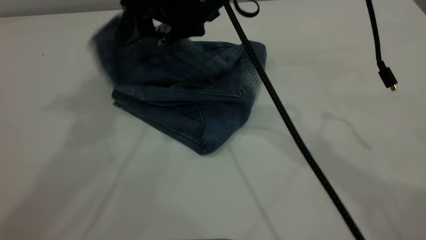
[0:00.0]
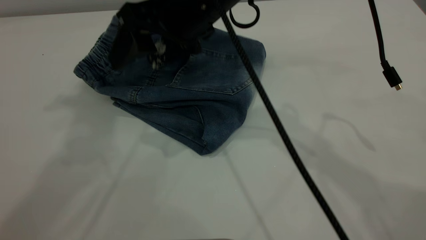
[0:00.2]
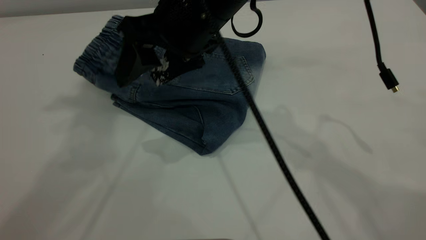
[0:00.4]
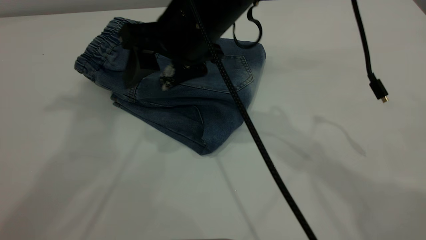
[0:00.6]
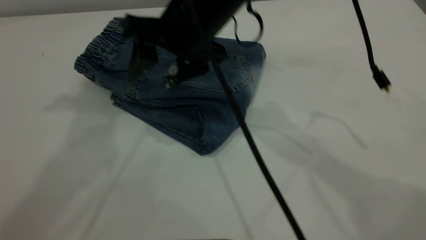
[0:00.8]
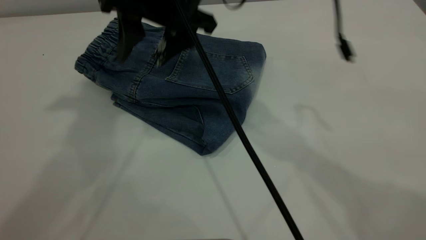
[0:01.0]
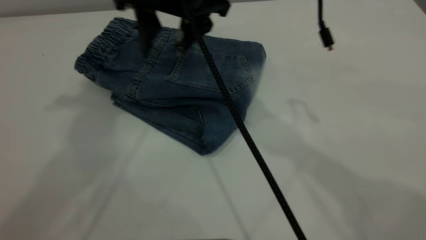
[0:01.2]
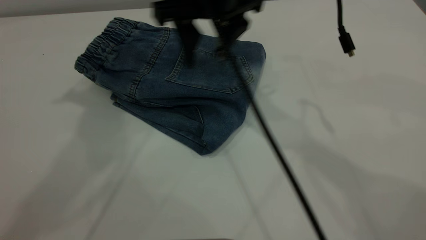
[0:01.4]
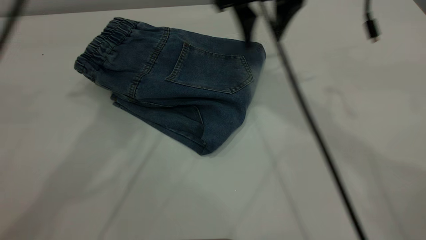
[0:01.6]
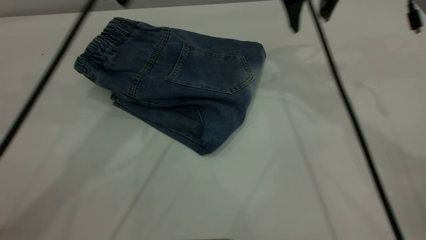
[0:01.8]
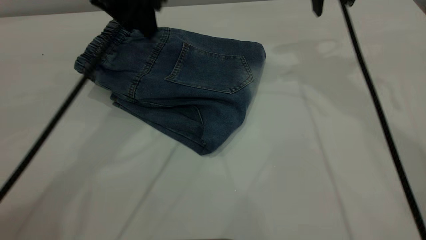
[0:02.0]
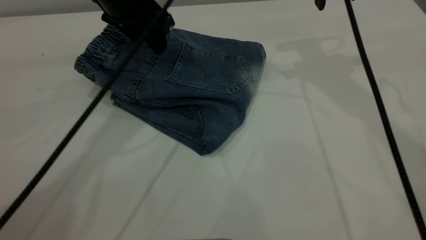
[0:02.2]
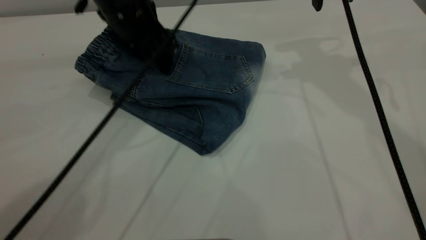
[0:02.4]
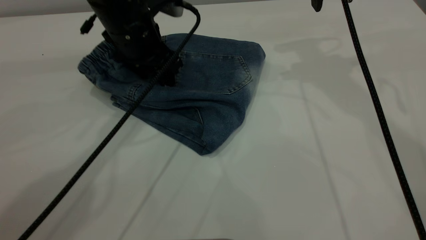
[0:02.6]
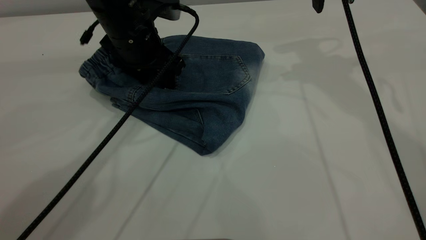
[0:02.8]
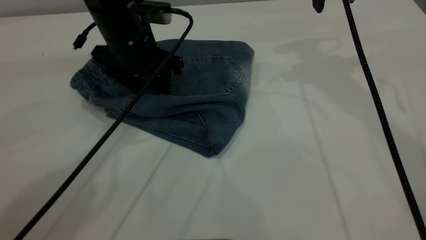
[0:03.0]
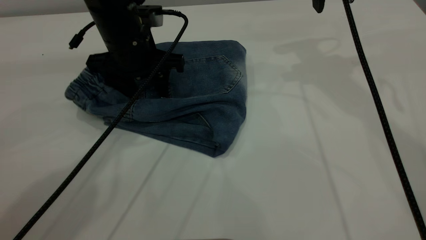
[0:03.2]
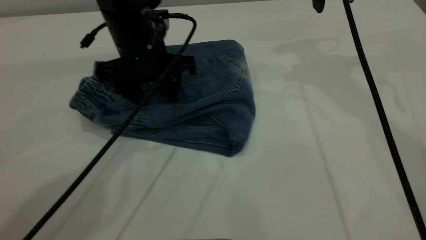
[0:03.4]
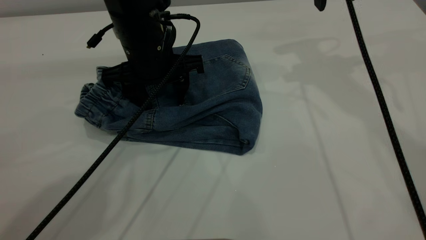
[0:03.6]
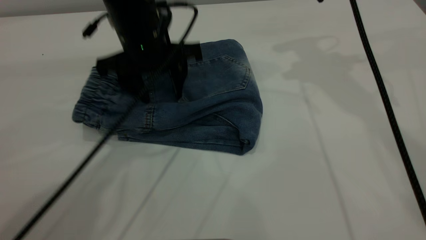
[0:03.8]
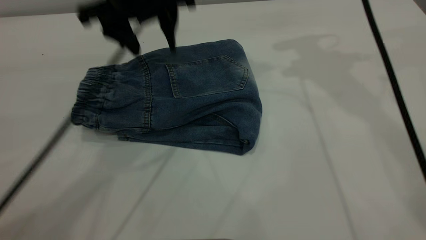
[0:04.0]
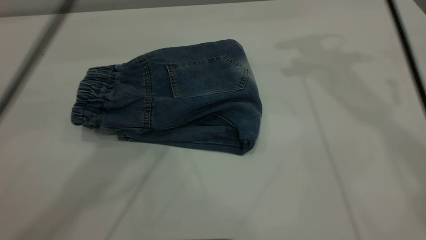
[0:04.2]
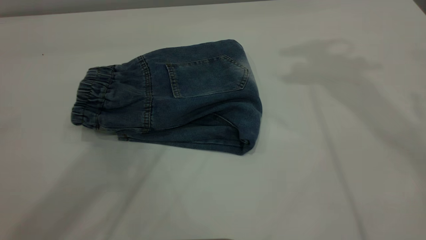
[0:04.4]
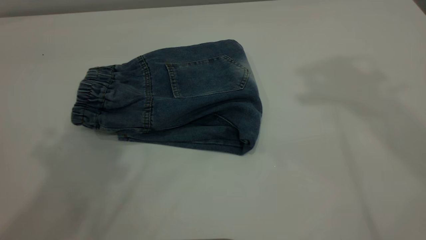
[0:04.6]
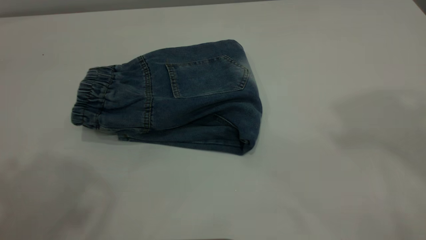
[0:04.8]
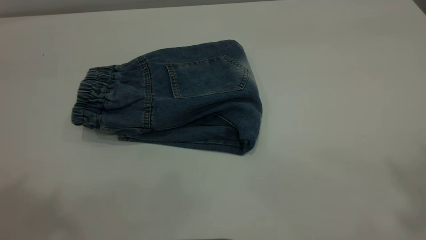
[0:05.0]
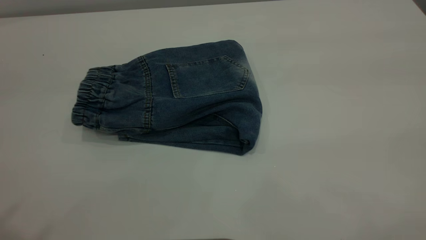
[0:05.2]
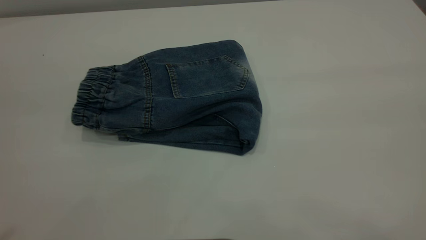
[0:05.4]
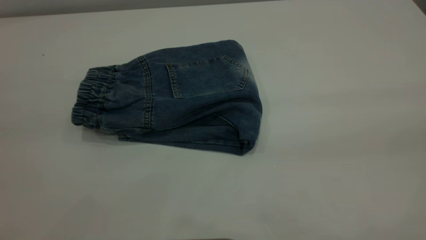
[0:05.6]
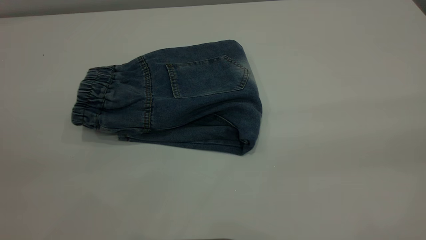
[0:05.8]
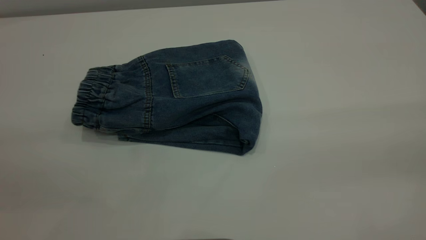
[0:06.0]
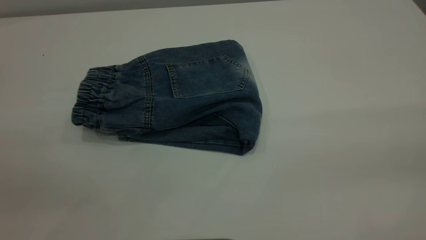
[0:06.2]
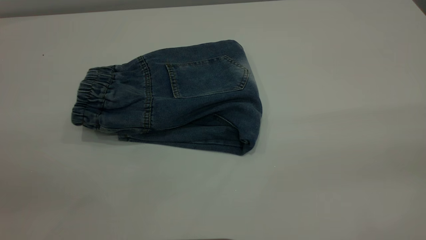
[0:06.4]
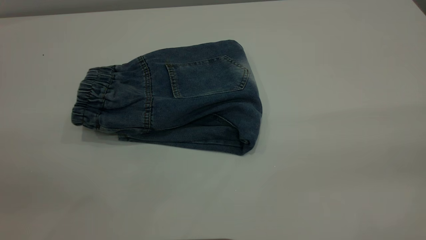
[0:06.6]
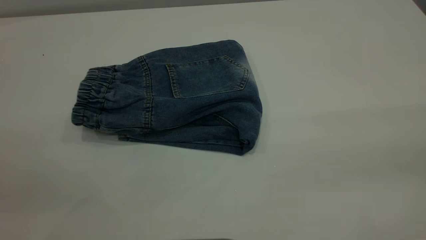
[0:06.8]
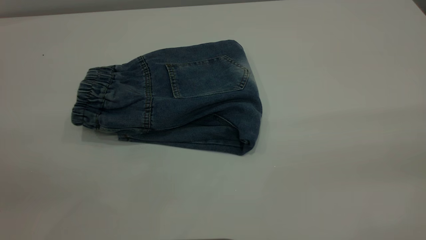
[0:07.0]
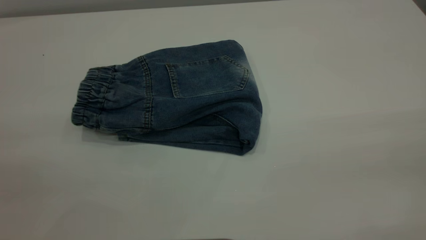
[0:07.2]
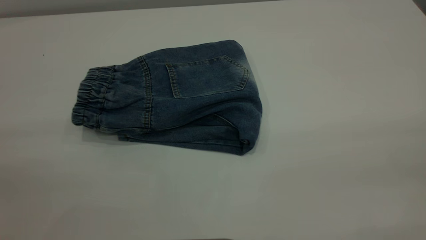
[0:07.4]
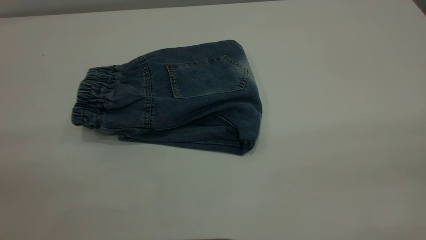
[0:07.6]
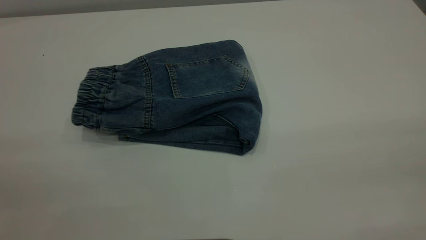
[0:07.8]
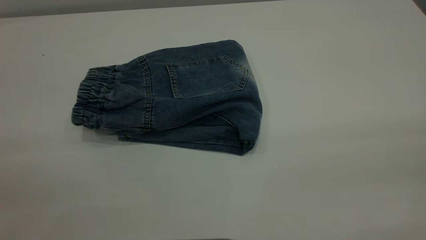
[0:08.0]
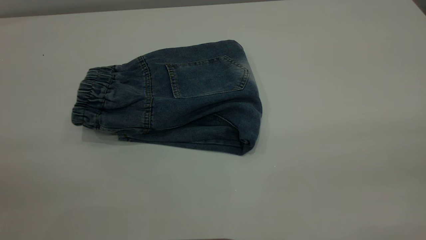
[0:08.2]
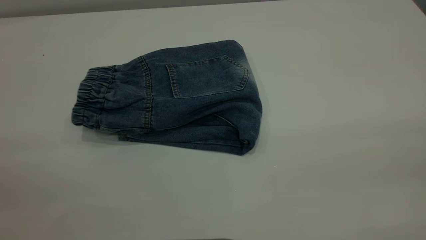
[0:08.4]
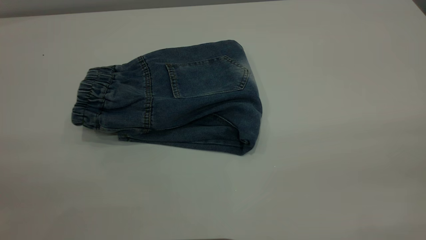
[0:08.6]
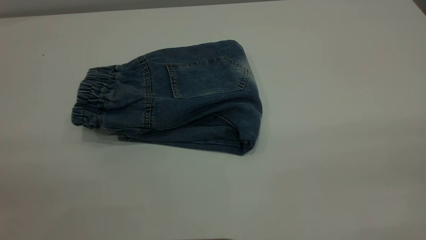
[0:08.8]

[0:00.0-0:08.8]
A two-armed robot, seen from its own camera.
0:00.0 to 0:01.4: The left gripper goes approximately 5 cm downward.
0:01.4 to 0:03.0: The left gripper heads downward, covering some 25 cm. The right gripper is displaced to the right and forward by about 15 cm.
0:03.0 to 0:04.4: The left gripper moves upward, roughly 30 cm, while the right gripper travels upward by approximately 20 cm.

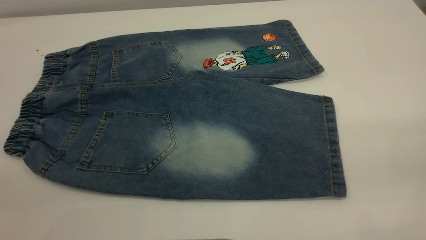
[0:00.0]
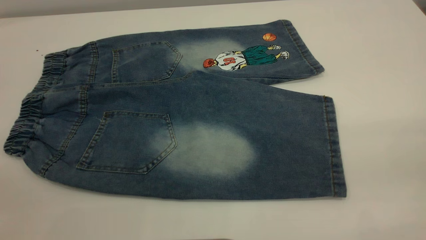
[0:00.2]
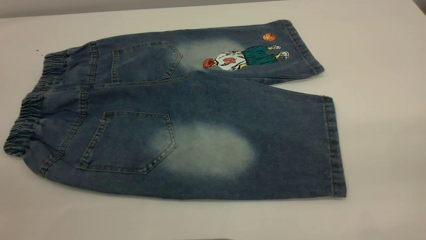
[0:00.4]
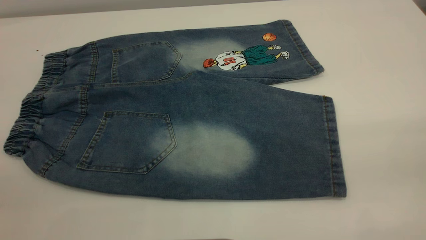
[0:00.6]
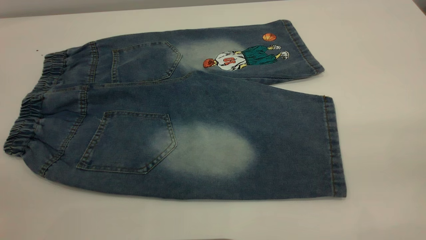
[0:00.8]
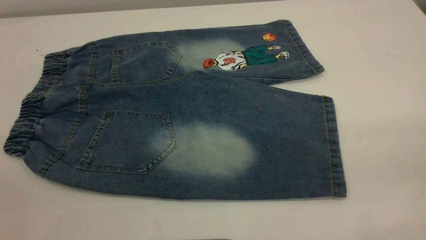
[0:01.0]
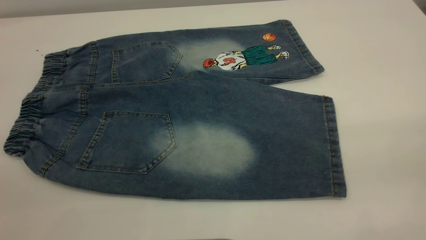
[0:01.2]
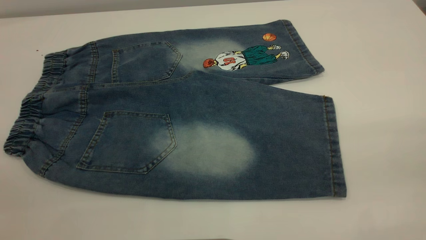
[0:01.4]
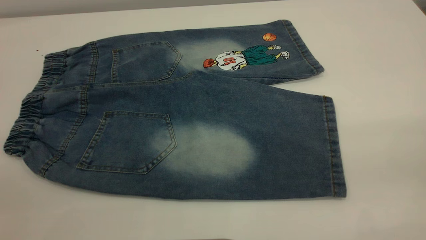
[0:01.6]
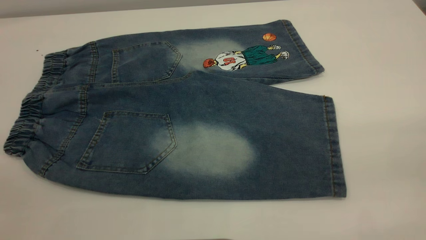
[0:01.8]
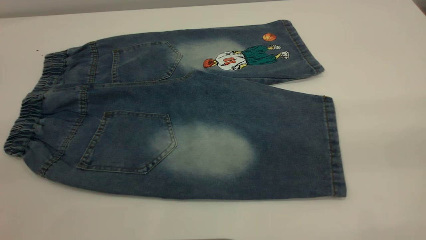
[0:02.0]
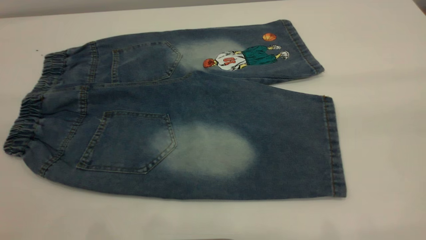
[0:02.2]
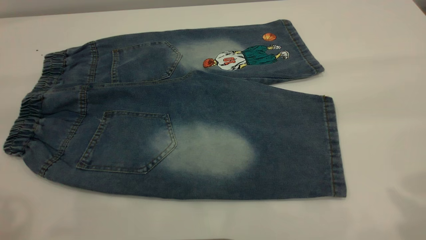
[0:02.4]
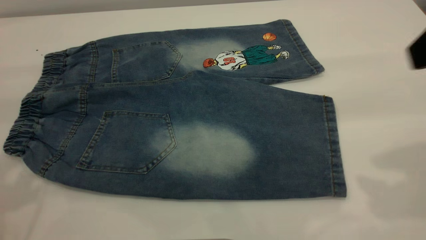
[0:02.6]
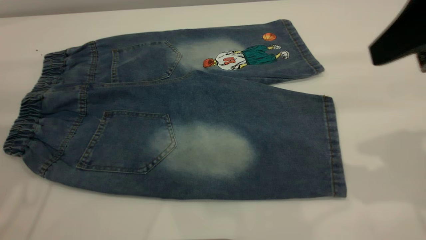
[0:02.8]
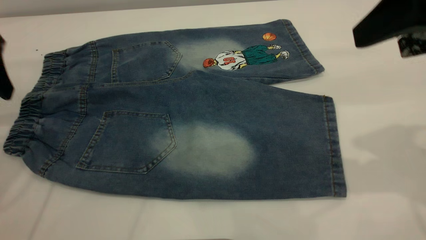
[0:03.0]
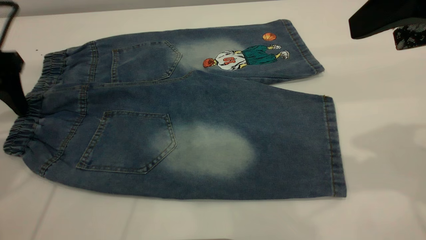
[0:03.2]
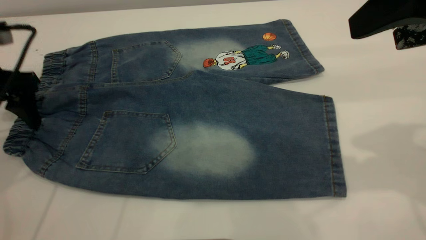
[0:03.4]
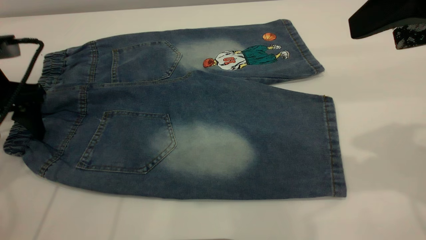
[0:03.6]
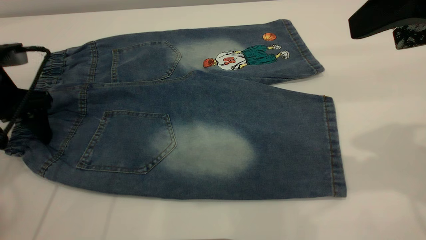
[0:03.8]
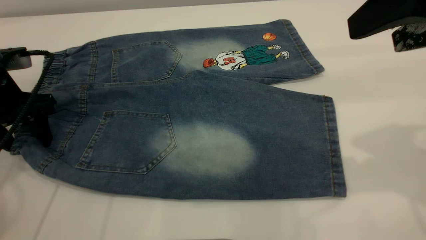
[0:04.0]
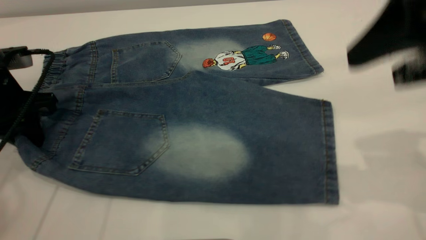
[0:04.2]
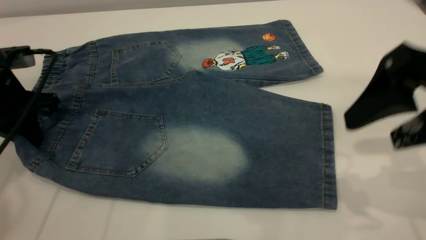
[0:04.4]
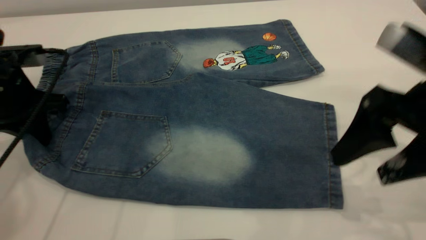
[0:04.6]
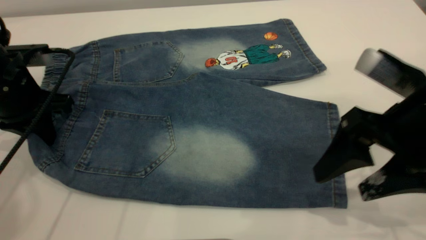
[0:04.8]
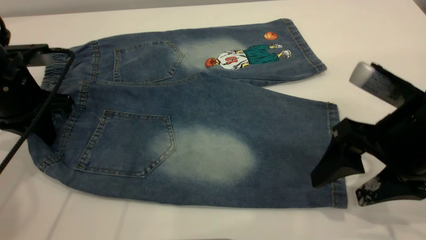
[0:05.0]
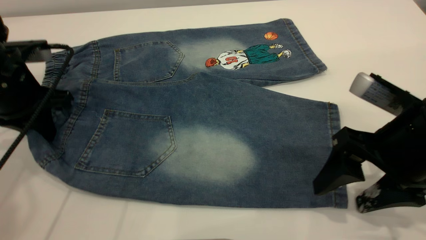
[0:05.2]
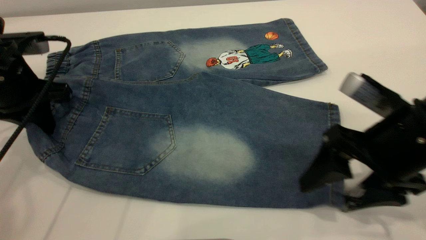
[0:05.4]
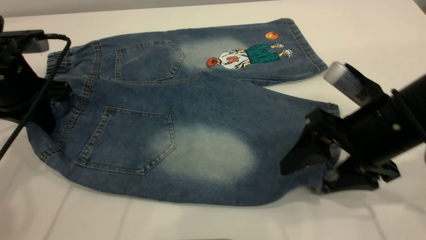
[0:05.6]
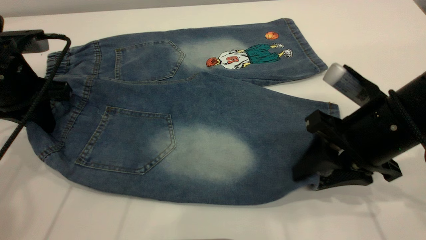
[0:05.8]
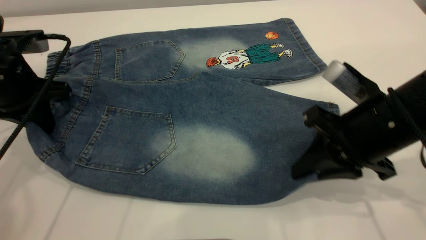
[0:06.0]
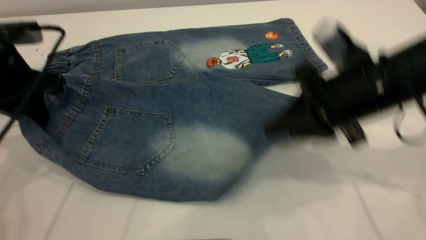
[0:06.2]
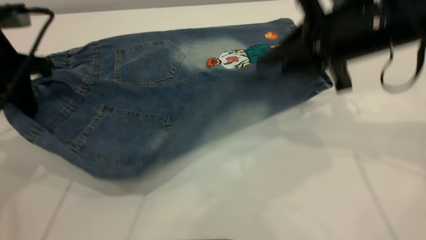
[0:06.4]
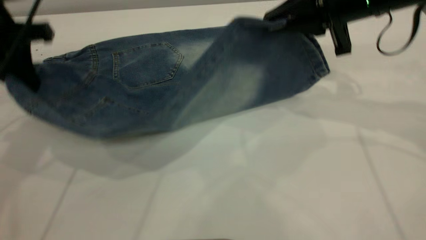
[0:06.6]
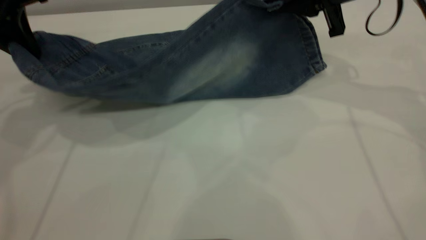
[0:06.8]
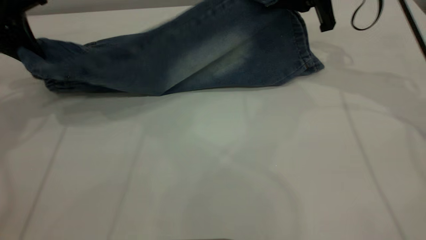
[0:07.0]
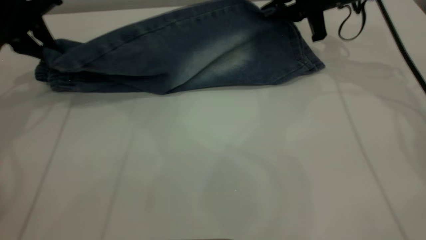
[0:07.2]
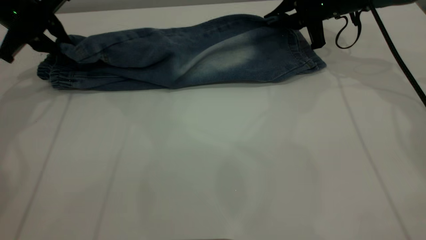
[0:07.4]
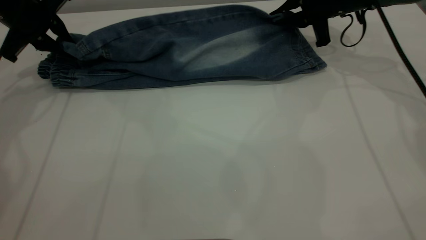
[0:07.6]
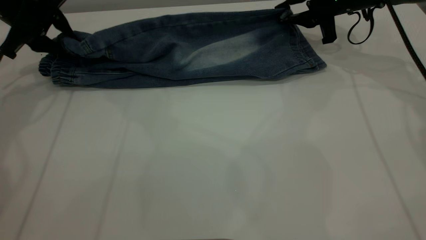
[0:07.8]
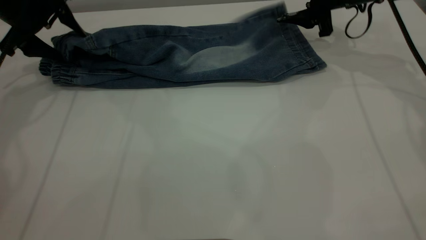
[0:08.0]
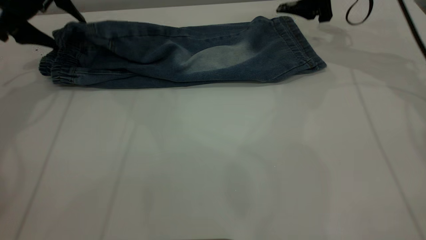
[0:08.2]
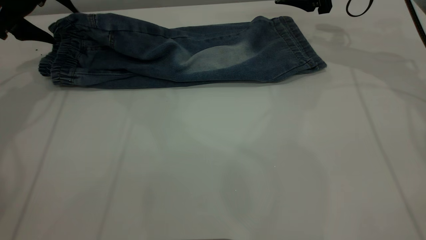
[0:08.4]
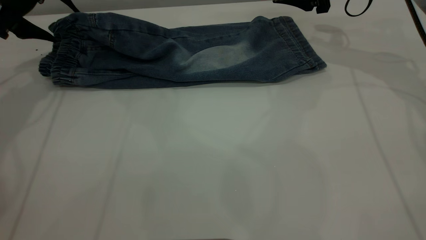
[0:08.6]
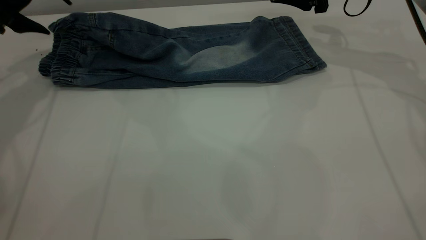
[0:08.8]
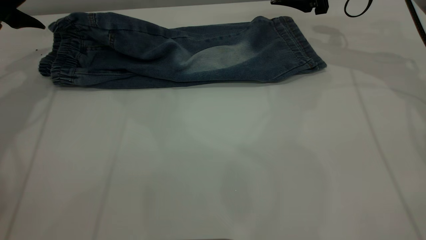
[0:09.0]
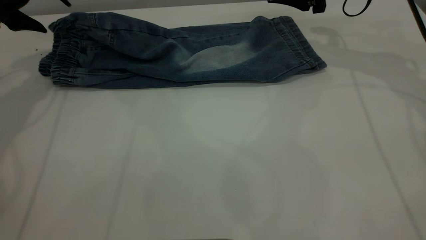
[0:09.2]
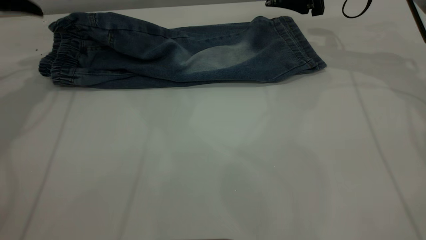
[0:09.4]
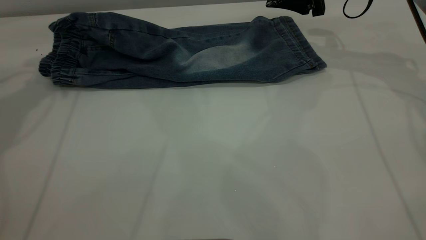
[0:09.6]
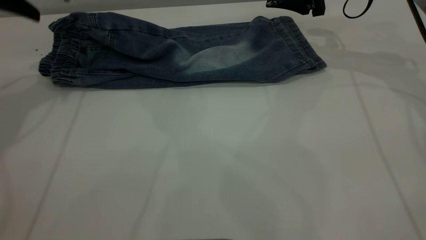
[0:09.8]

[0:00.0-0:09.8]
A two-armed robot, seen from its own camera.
Step, 0:00.0 to 0:09.6: Fold the bottom of the pants upward.
0:00.0 to 0:01.4: Both grippers stay put.
0:01.4 to 0:02.8: The right gripper travels forward by roughly 20 cm.
0:02.8 to 0:04.2: The left gripper shifts roughly 15 cm downward, and closes.
0:04.2 to 0:05.6: The right gripper shifts some 15 cm downward.
0:05.6 to 0:07.0: The right gripper shifts about 20 cm forward, and closes up, while the left gripper heads forward and upward, covering approximately 10 cm.
0:07.0 to 0:08.4: The left gripper changes place by approximately 5 cm, and opens. Meanwhile the right gripper ends up about 5 cm from where it was, and opens up.
0:08.4 to 0:09.8: The left gripper shifts by approximately 5 cm.
